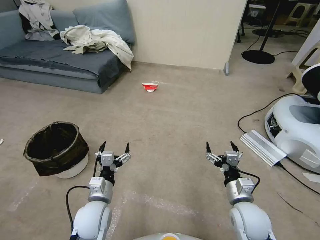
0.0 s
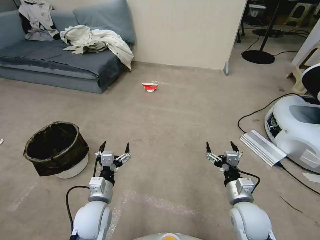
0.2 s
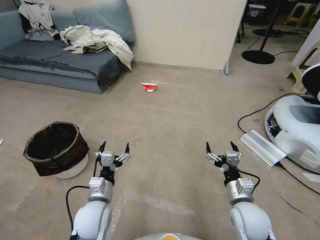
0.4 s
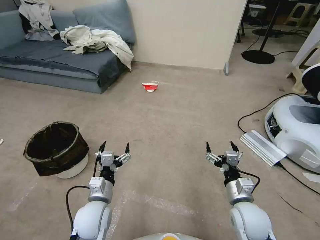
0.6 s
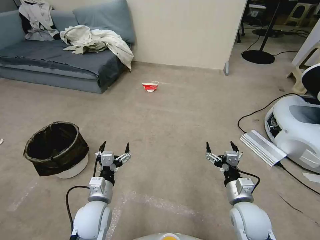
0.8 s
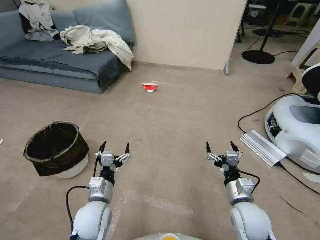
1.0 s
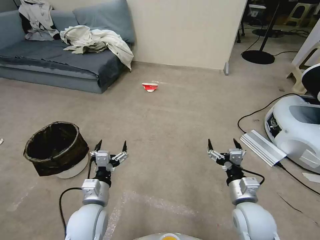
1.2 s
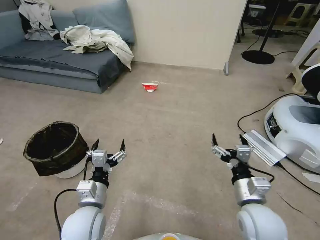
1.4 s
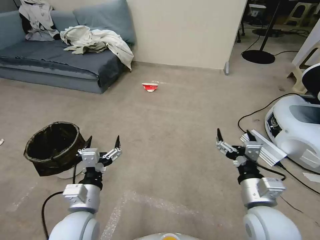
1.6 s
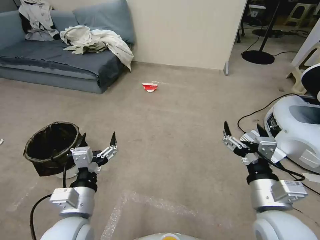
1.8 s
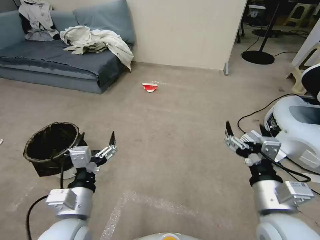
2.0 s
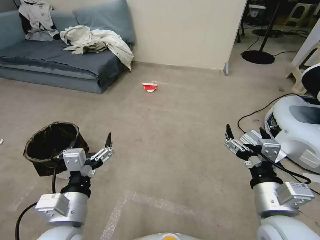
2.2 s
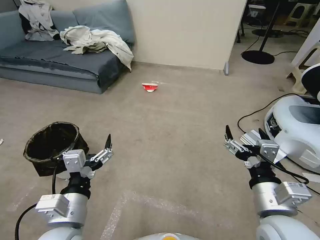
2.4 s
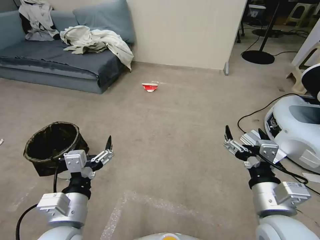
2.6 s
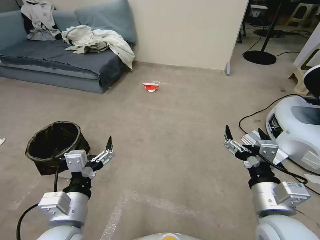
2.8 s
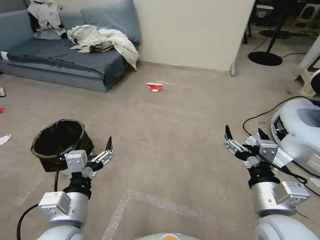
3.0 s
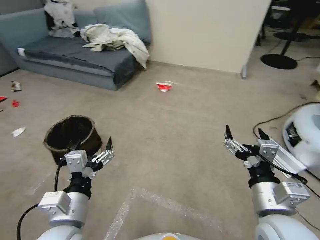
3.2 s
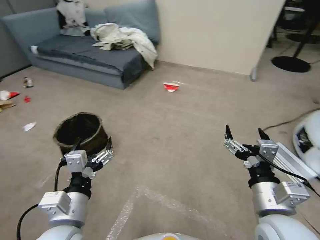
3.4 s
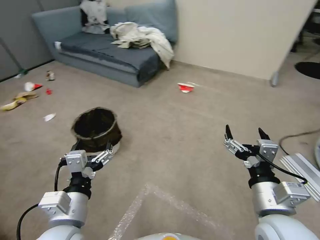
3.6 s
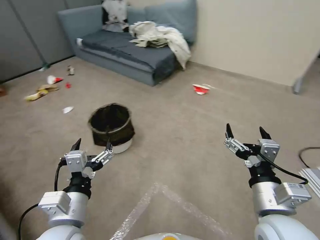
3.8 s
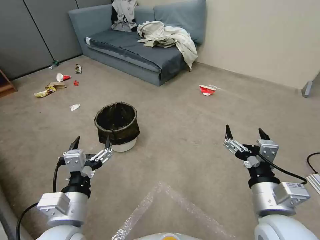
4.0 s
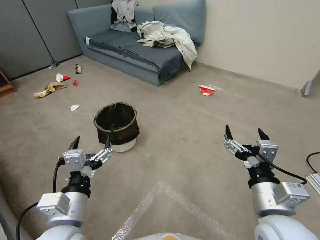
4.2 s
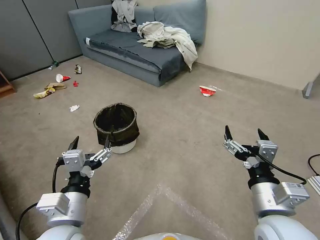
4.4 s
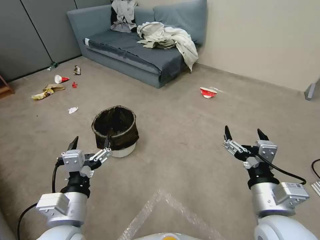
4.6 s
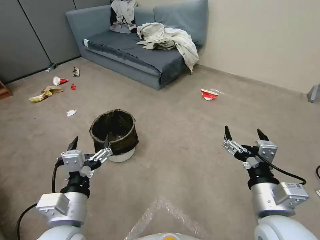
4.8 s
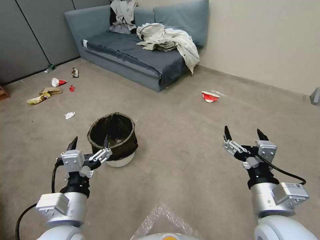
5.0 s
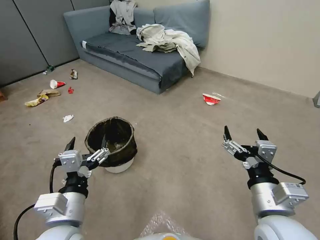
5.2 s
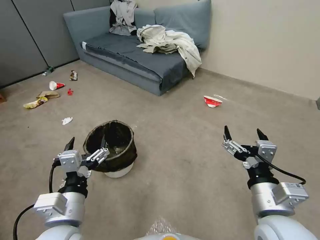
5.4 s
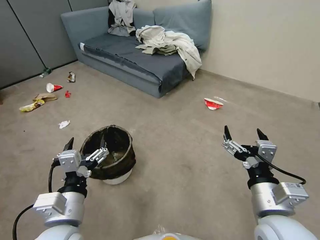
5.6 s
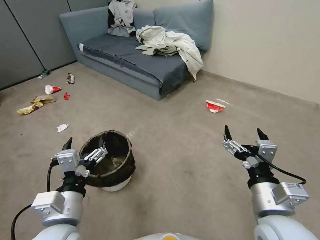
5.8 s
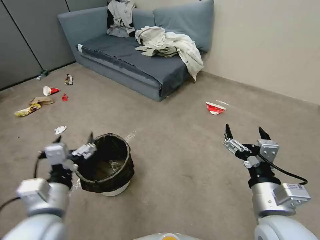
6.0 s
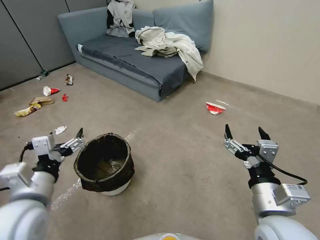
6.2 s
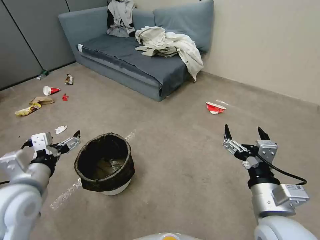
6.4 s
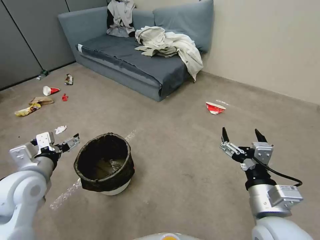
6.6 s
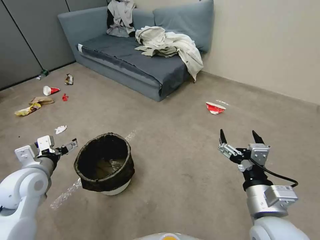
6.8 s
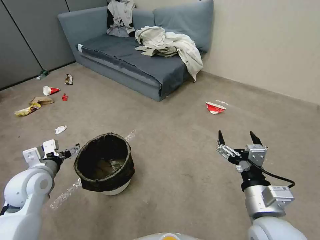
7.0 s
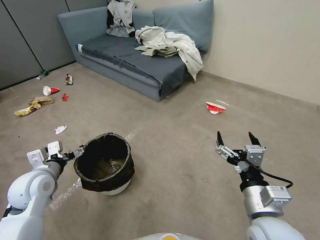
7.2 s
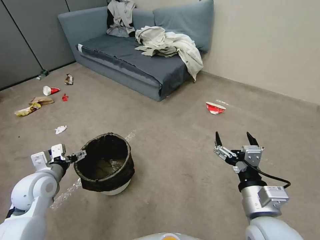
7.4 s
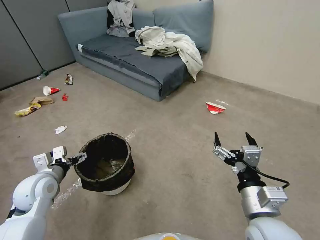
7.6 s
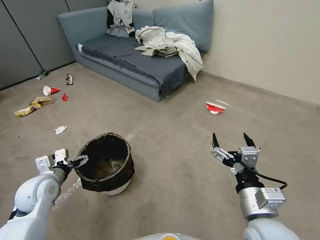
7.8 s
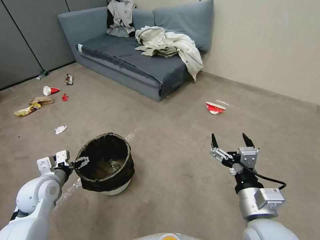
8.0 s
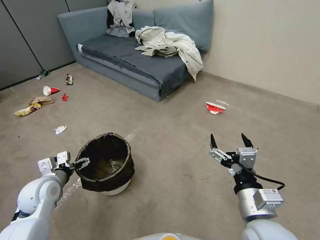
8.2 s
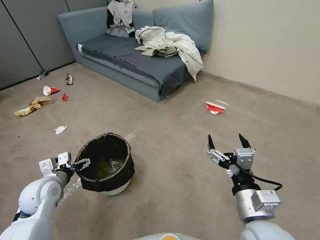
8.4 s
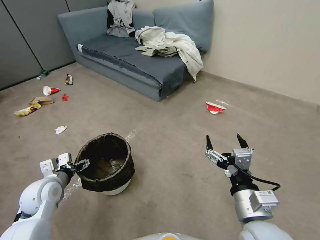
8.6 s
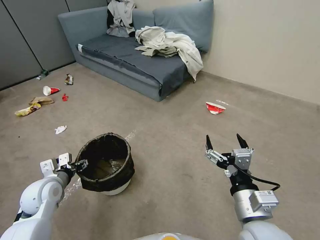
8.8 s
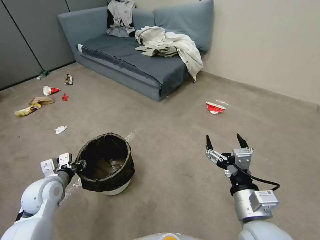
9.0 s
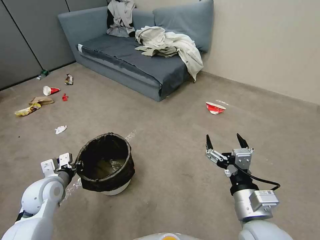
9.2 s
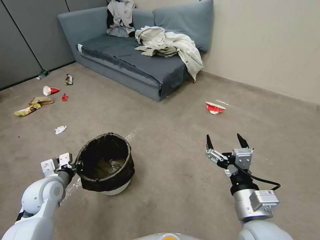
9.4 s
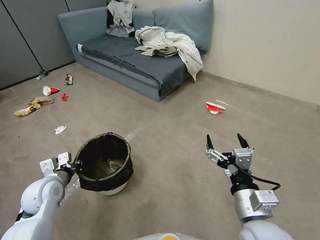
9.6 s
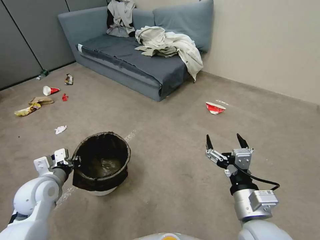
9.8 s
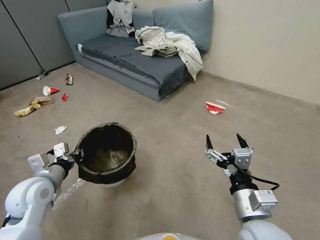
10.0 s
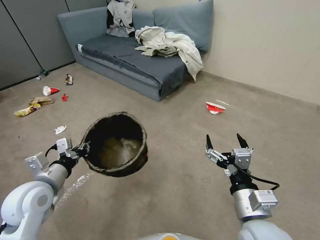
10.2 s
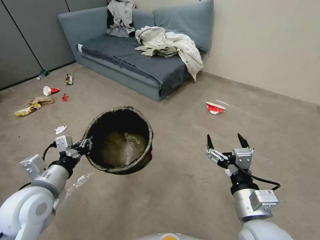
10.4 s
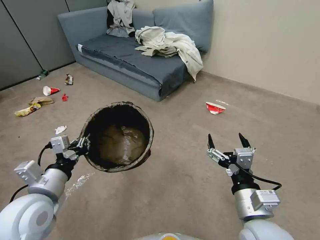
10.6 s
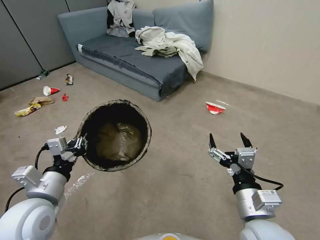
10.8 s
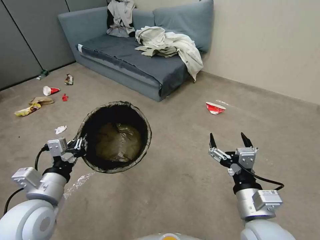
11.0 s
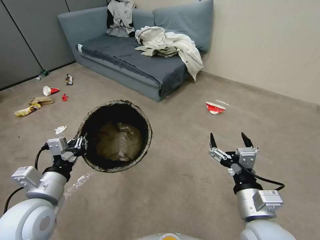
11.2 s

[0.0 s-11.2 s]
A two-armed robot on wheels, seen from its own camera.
Task of the whole recording: Pick up the trash can from the floor.
1.6 to 3.2 s: Both grippers travel together upward, approximately 5 cm.
4.8 to 6.4 s: The left gripper heads to the left and forward, covering roughly 15 cm.
6.4 to 8.0 s: The left gripper is displaced downward, forward and to the left by some 15 cm.
8.0 to 9.6 s: The left gripper closes its fingers.
9.6 to 11.2 s: The left gripper heads upward, backward and to the right, covering approximately 15 cm.
